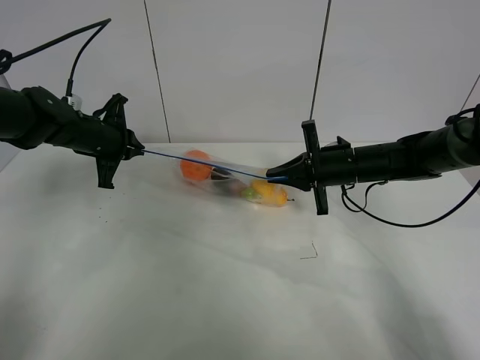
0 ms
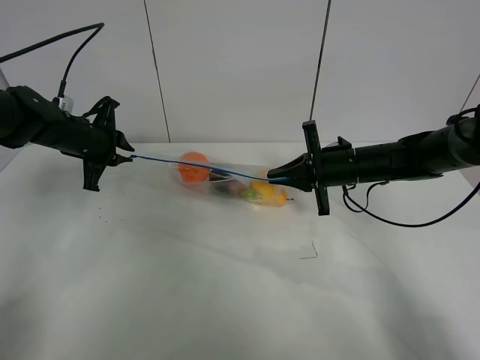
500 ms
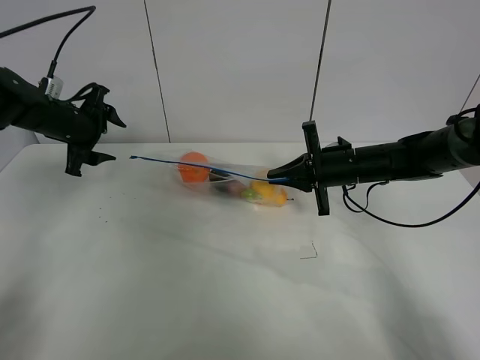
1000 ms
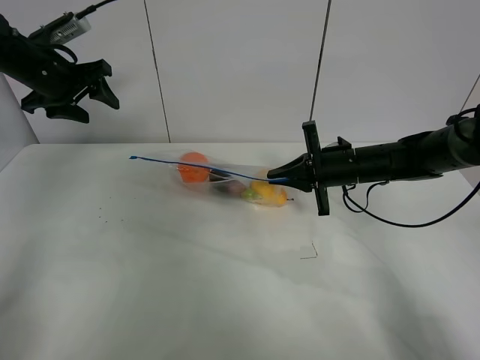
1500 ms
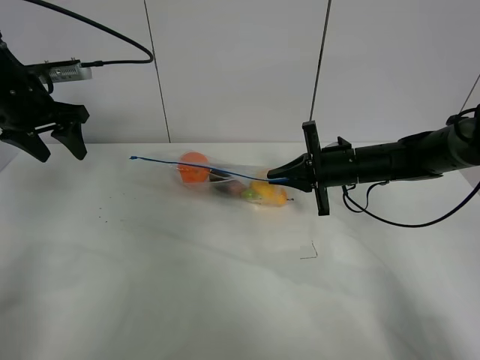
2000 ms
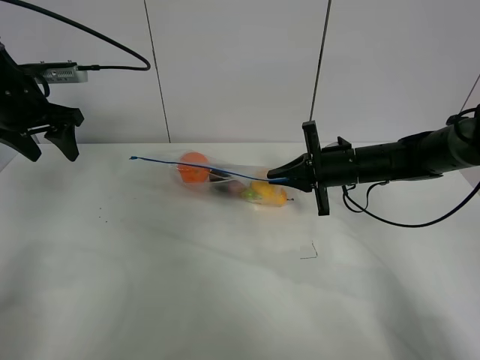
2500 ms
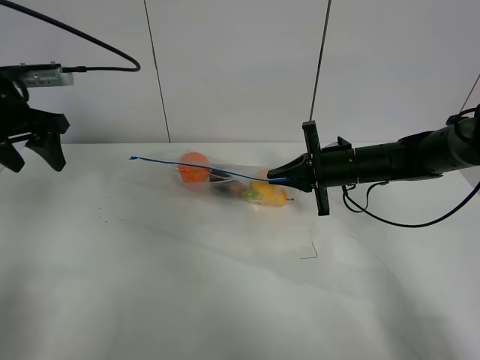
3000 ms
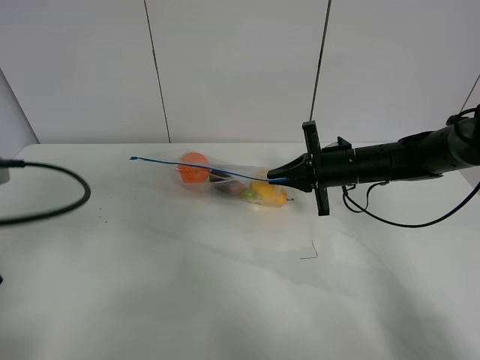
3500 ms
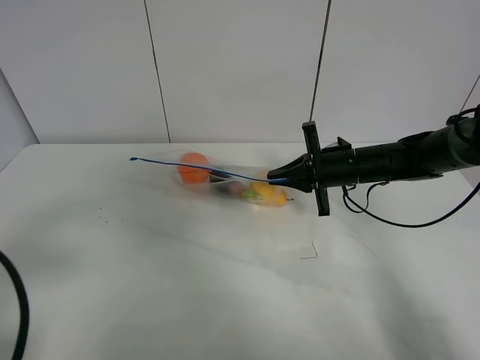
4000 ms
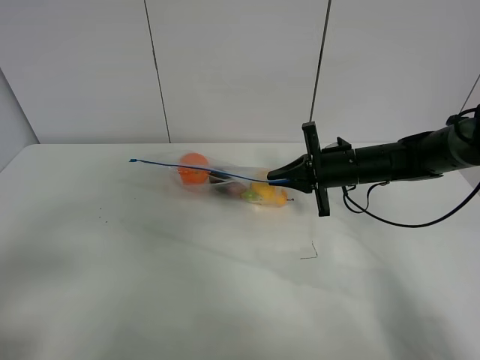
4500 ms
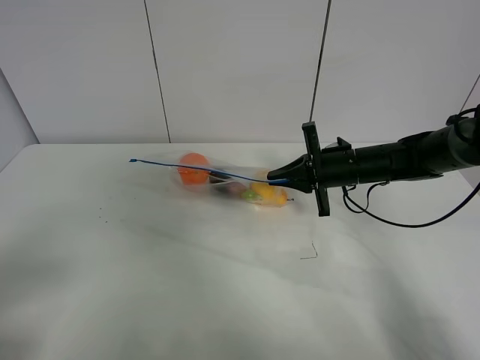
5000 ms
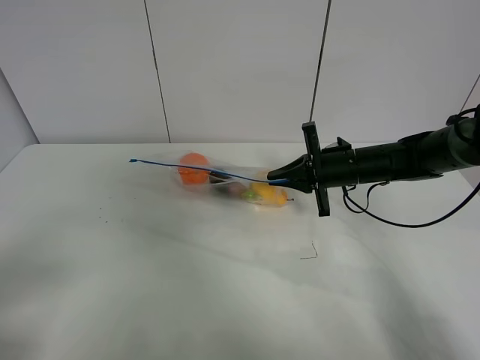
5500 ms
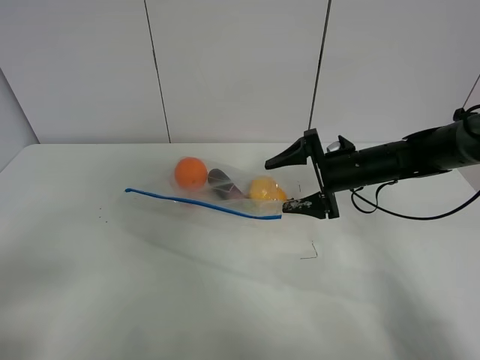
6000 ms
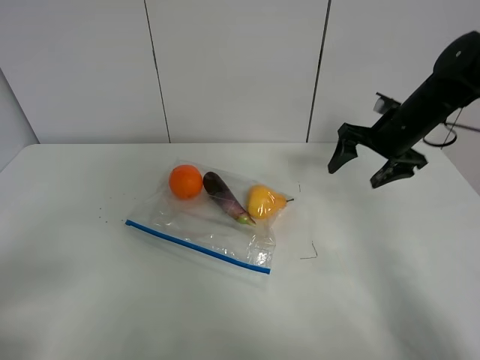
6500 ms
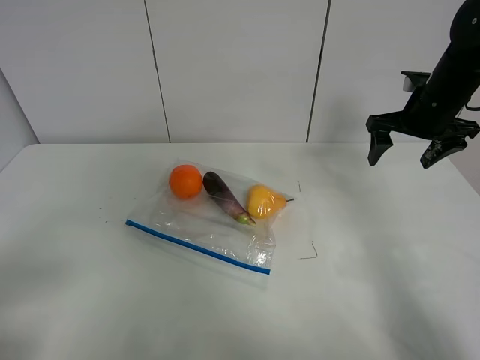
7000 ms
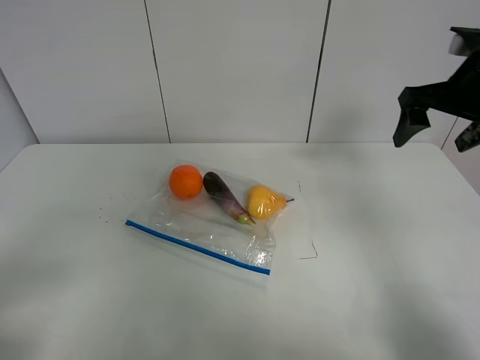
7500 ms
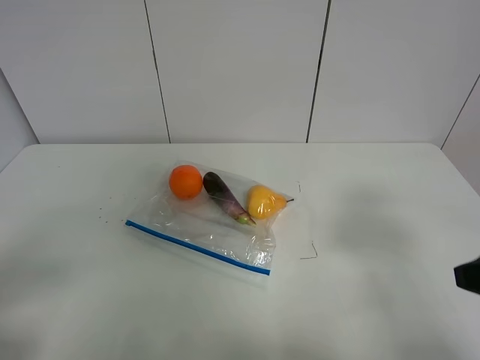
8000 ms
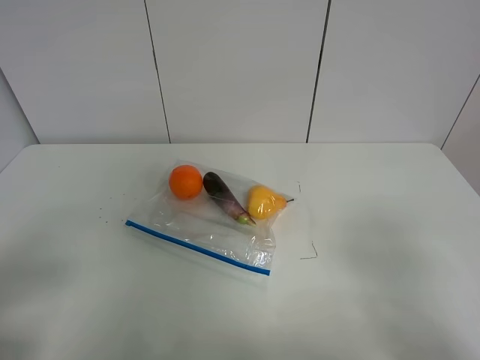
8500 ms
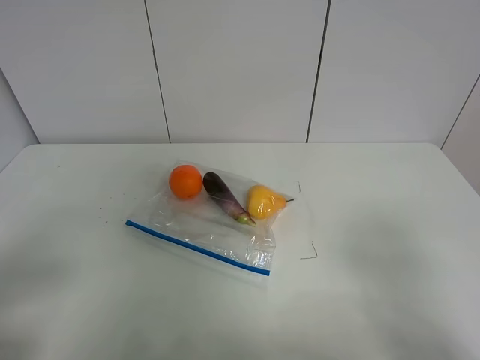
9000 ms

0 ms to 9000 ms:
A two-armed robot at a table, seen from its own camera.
0 ms to 2000 ms: The left gripper travels upward and to the left by approximately 10 cm, and opens.
2000 ms to 4500 ms: The left gripper goes about 35 cm backward.
4500 ms to 7000 ms: The right gripper heads upward and to the right, covering roughly 15 cm, and opens up.
7000 ms to 9000 ms: The right gripper goes roughly 40 cm backward.

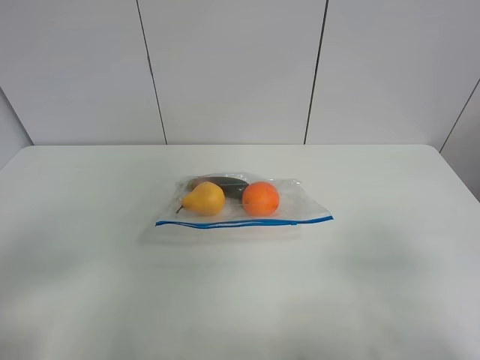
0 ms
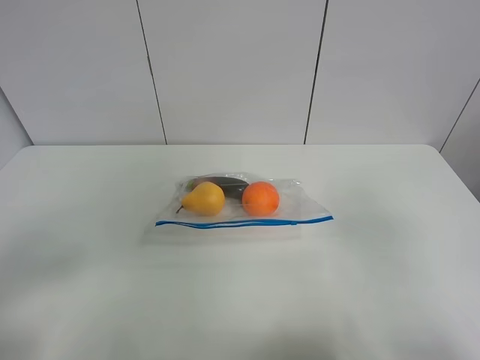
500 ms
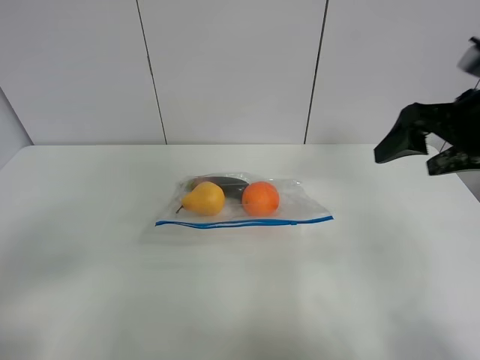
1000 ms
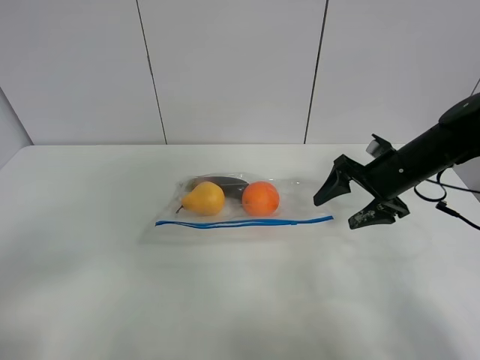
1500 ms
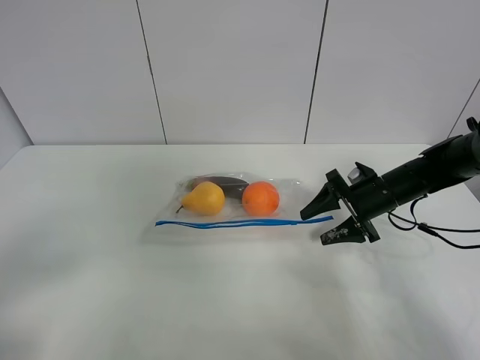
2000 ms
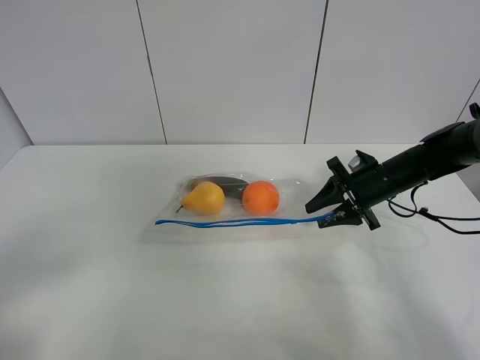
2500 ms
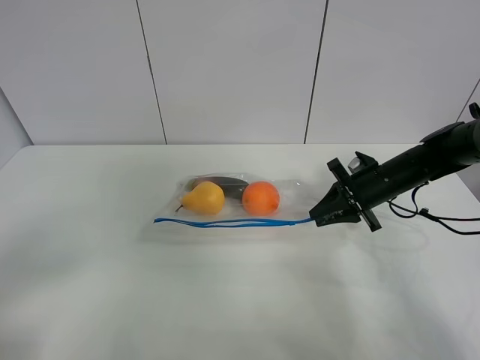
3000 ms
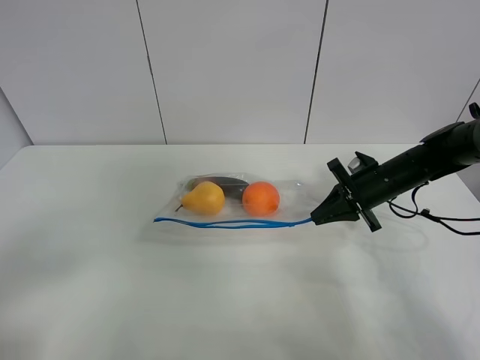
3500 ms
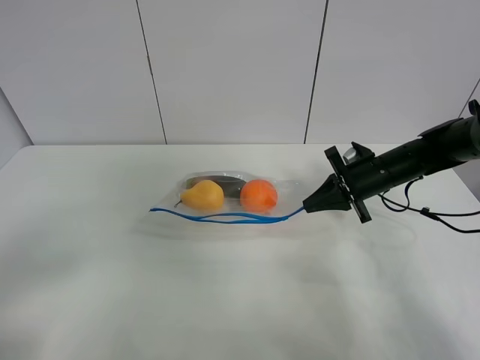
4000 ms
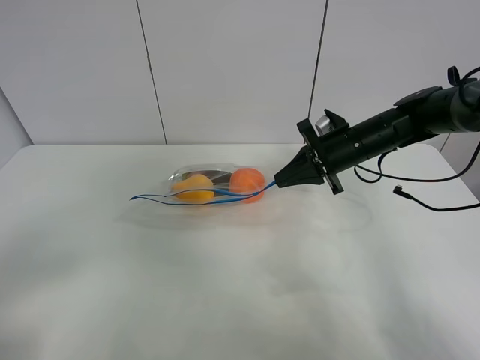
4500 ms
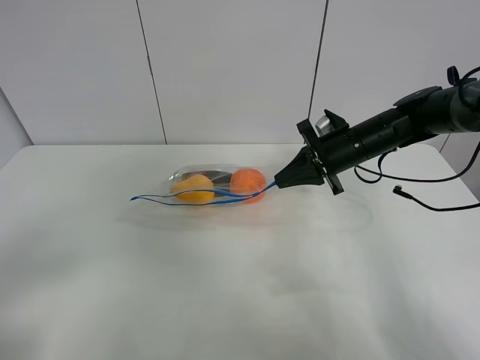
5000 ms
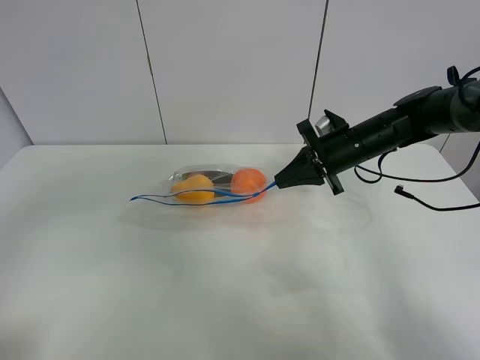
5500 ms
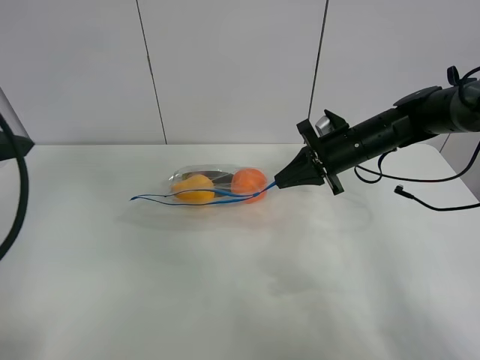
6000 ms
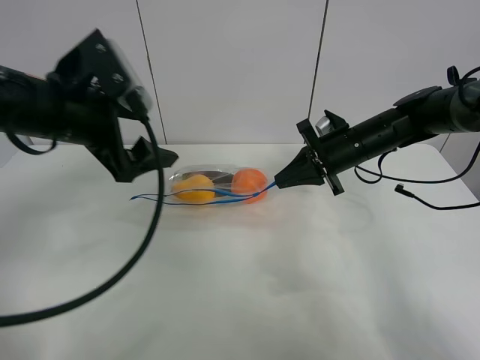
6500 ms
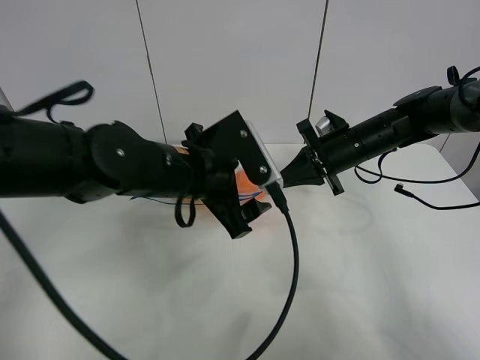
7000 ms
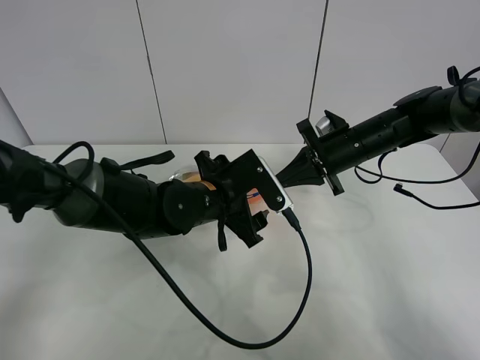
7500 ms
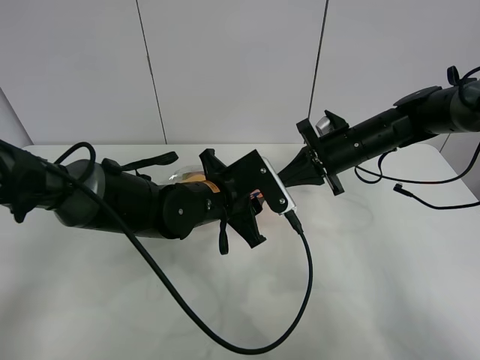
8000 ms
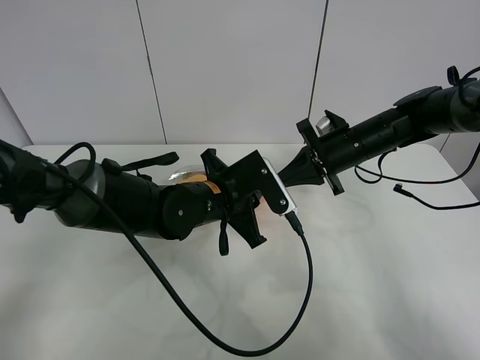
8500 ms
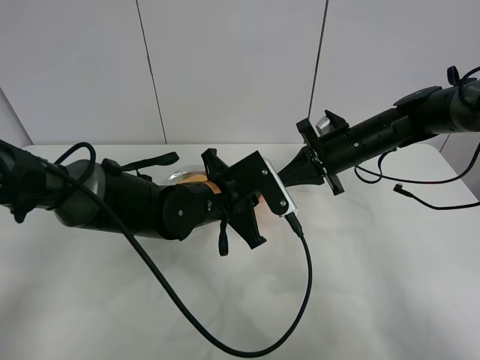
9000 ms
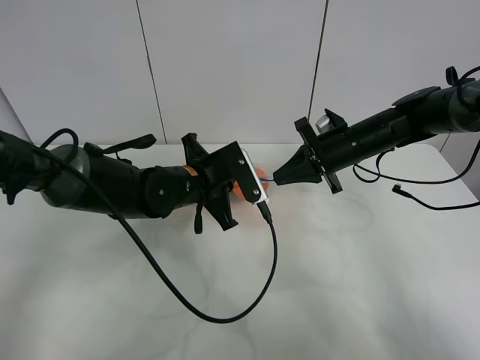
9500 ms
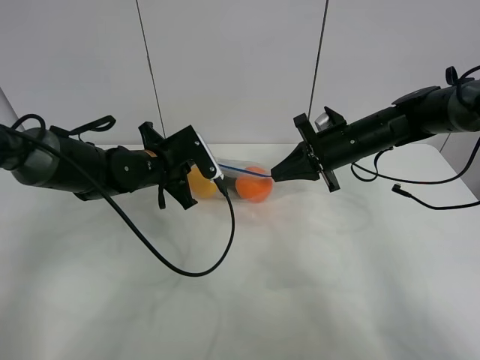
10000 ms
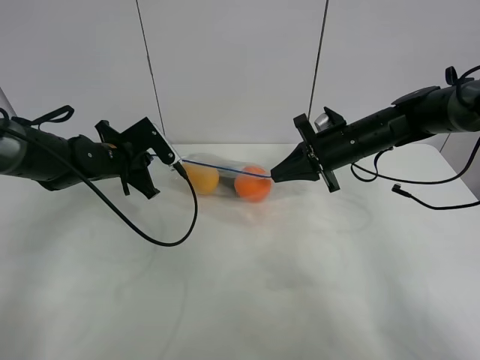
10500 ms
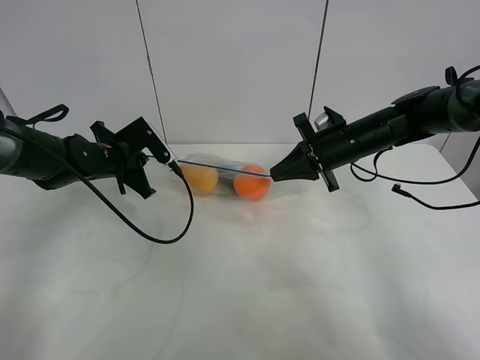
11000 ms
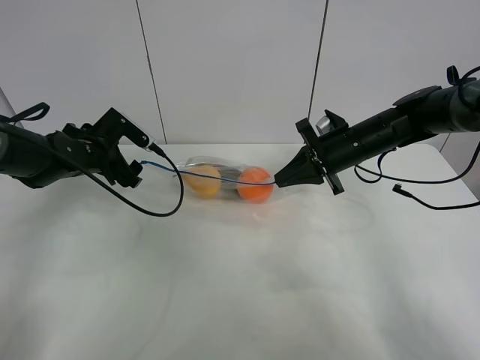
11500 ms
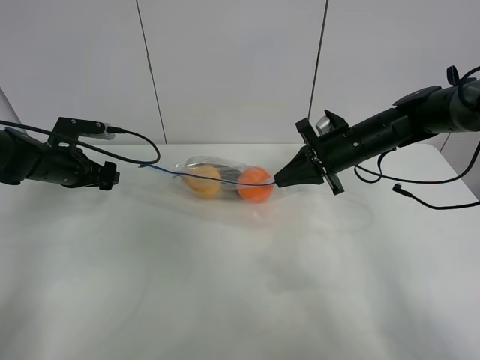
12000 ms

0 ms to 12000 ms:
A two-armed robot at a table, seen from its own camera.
Step, 0 ms to 3500 ms: Grasp the fruit bag with right gripper.
Step, 4000 ms to 4500 ms: Lift the fruit bag with your right gripper.
Step, 5000 ms to 11000 ms: Pull the fruit bag with left gripper.
0 ms to 2000 ms: The right gripper shifts some 40 cm forward and downward.
2000 ms to 4000 ms: The right gripper closes its fingers.
4000 ms to 6000 ms: The left gripper travels forward and upward by about 20 cm. Meanwhile the right gripper shifts by about 5 cm.
6000 ms to 8000 ms: The left gripper moves to the right and downward, about 35 cm, and closes.
8000 ms to 10000 ms: The left gripper is displaced to the left and forward by roughly 15 cm, and closes.
10000 ms to 12000 ms: The left gripper moves to the left, roughly 15 cm, and opens.

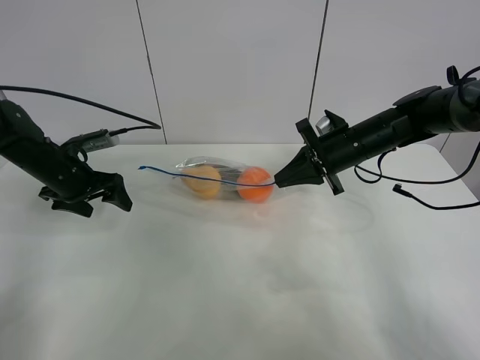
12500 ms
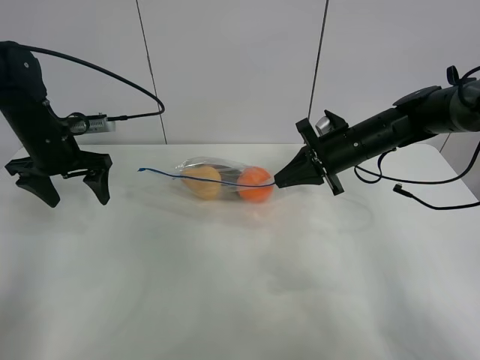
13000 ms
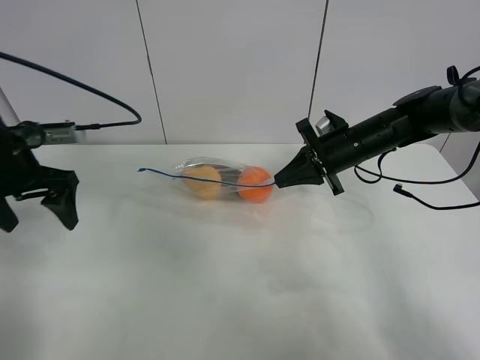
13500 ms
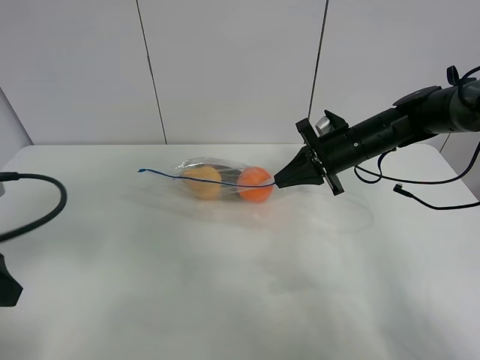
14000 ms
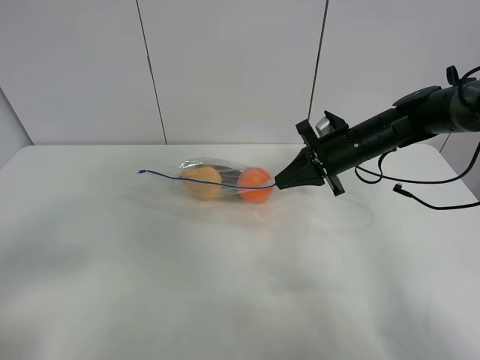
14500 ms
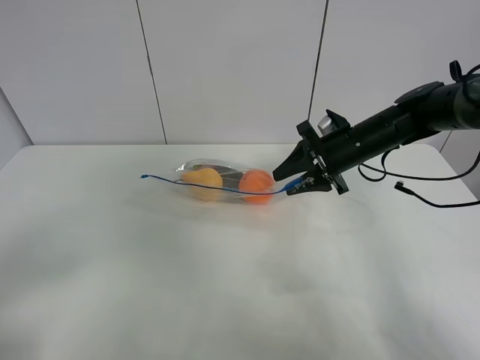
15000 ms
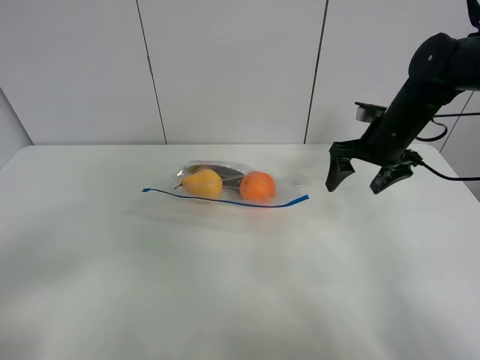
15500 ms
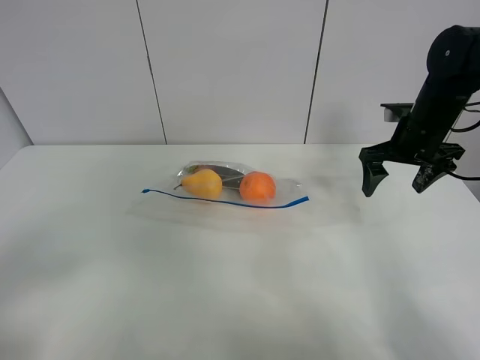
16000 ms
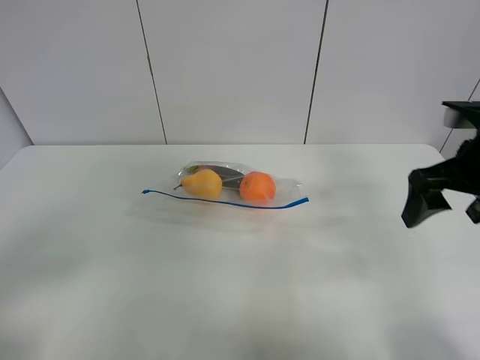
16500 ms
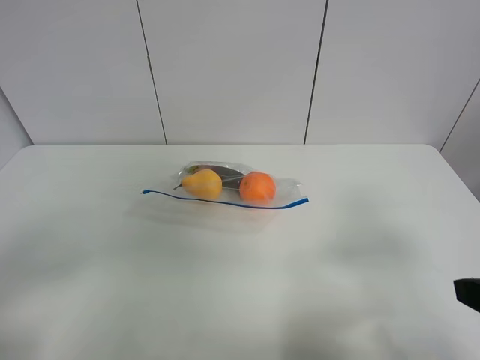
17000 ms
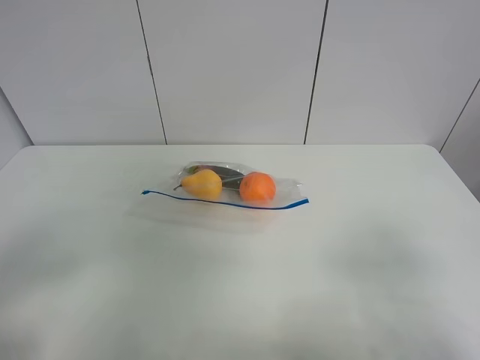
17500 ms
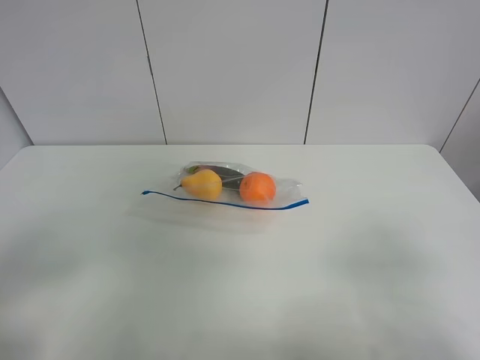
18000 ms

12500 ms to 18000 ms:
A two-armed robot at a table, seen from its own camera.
12500 ms to 14500 ms: The left gripper heads backward, covering roughly 35 cm.
14500 ms to 16000 ms: The right gripper travels to the right and upward by some 10 cm, and opens up.
16000 ms to 18000 ms: The right gripper is displaced backward by roughly 35 cm.
